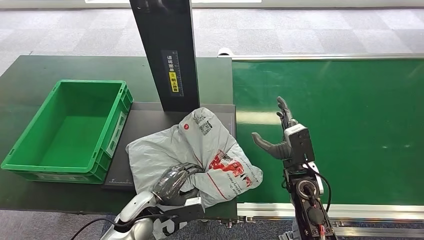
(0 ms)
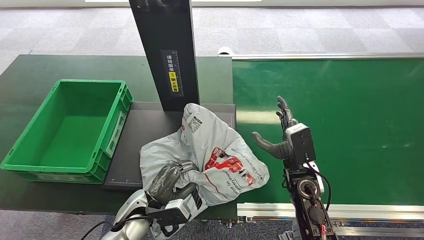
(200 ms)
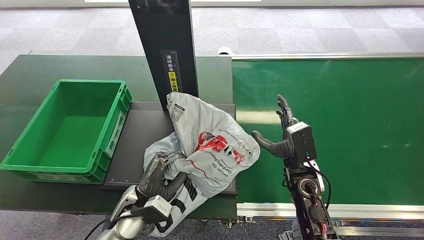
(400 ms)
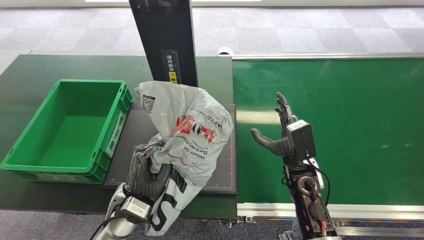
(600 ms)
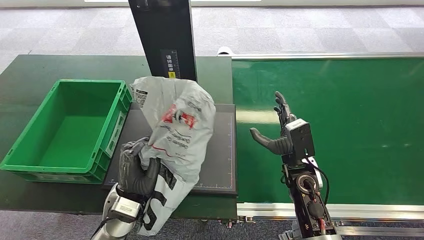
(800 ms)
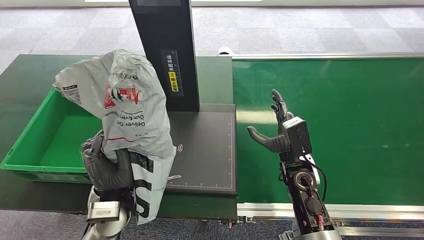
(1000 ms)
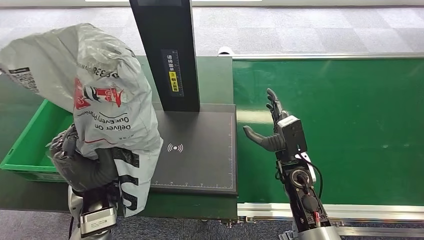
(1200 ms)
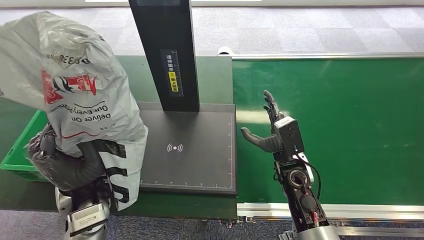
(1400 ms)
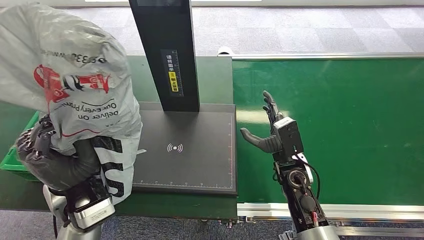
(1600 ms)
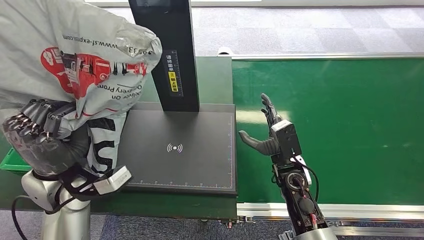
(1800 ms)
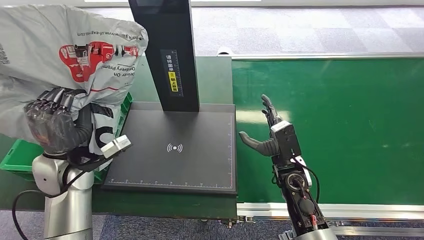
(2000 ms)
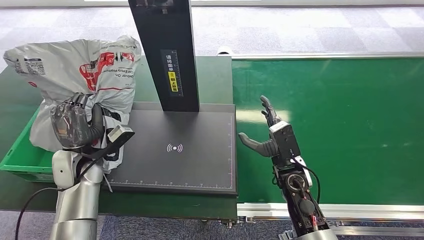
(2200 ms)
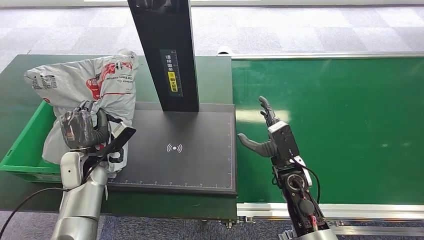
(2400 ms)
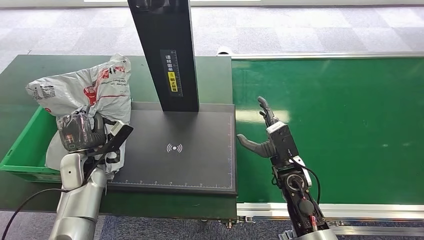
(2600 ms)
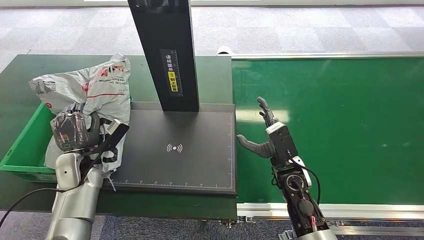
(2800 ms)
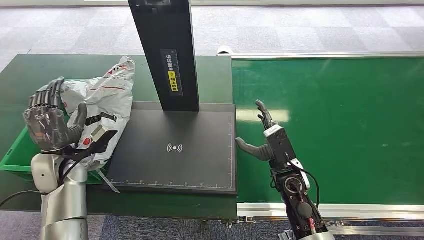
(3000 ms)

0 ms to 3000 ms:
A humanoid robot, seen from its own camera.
Step, 1000 ms to 3000 ms: Place the package into the parcel locker.
